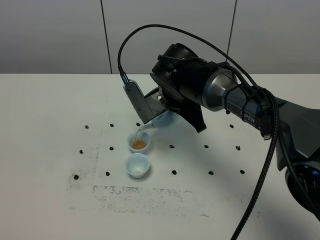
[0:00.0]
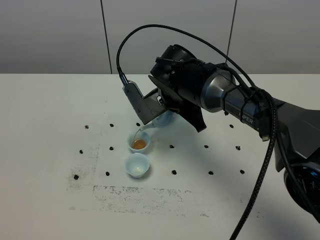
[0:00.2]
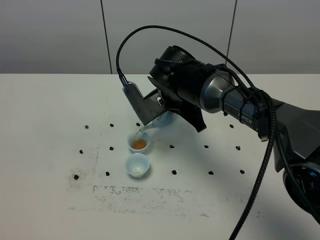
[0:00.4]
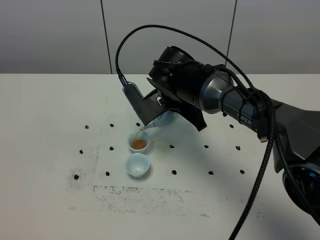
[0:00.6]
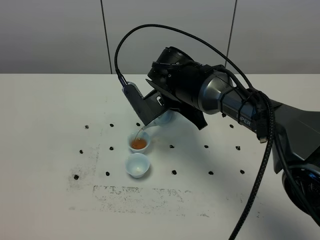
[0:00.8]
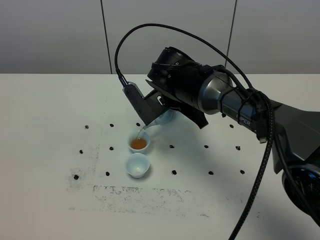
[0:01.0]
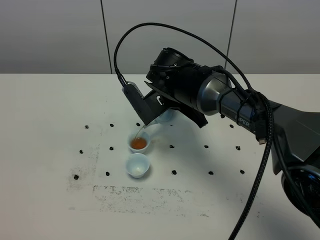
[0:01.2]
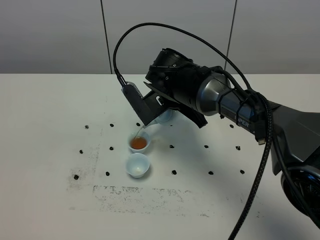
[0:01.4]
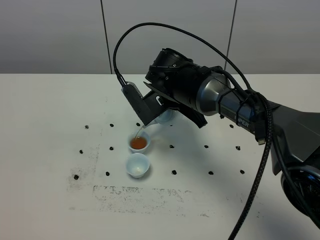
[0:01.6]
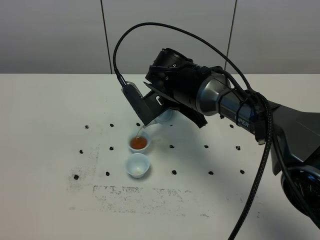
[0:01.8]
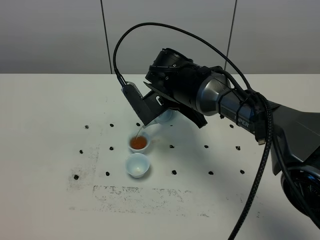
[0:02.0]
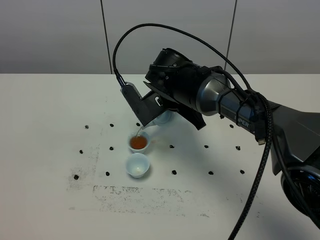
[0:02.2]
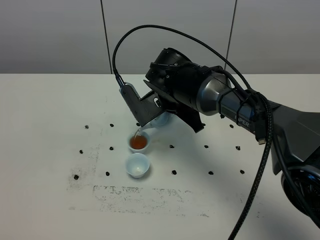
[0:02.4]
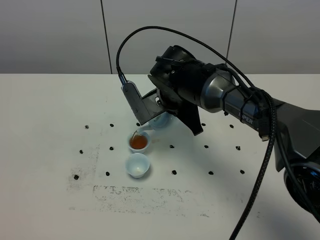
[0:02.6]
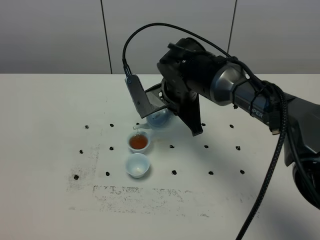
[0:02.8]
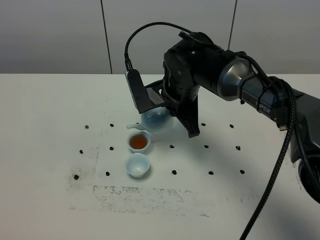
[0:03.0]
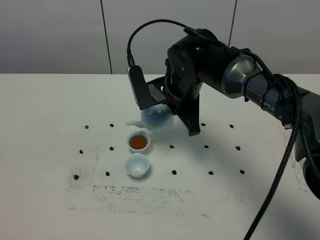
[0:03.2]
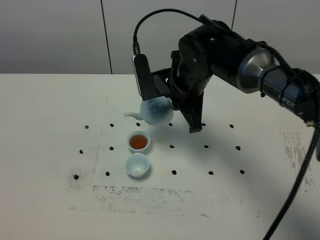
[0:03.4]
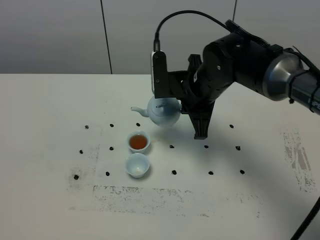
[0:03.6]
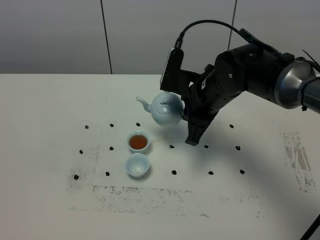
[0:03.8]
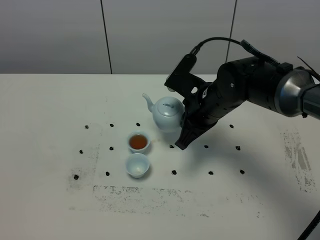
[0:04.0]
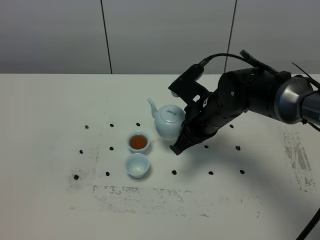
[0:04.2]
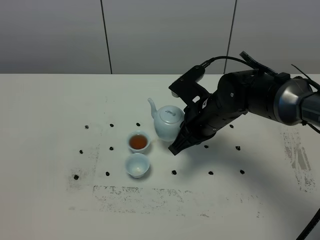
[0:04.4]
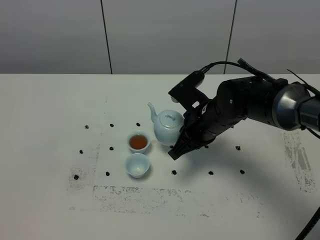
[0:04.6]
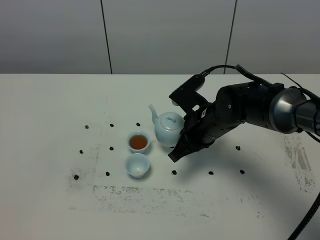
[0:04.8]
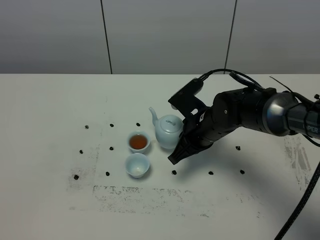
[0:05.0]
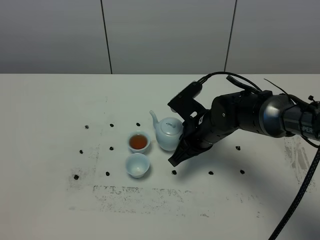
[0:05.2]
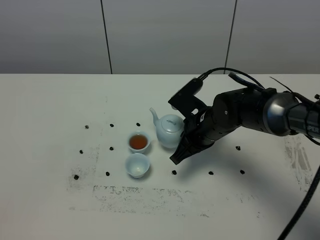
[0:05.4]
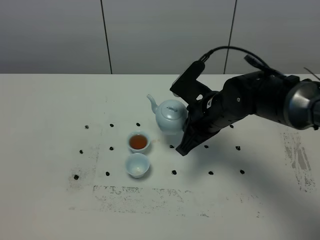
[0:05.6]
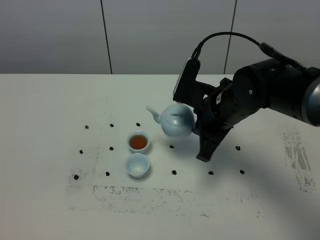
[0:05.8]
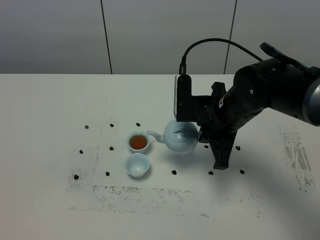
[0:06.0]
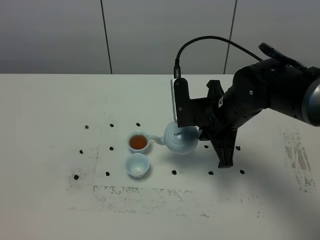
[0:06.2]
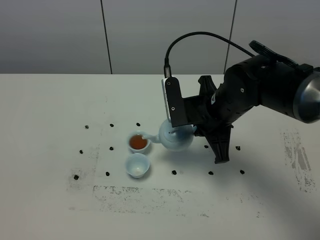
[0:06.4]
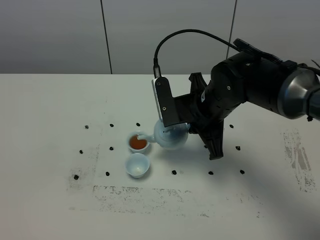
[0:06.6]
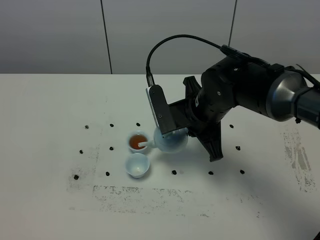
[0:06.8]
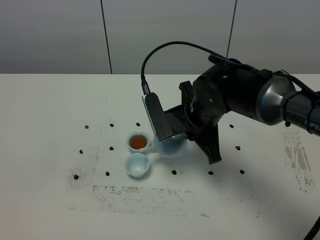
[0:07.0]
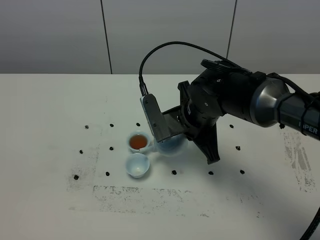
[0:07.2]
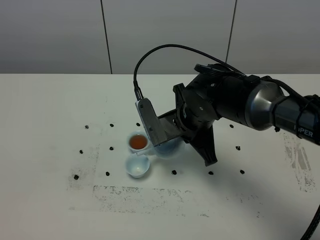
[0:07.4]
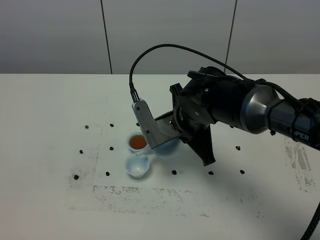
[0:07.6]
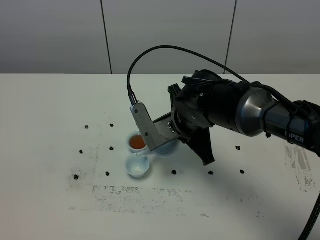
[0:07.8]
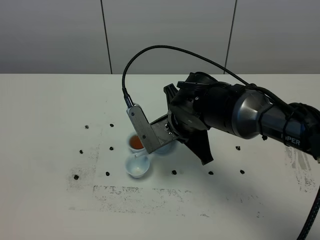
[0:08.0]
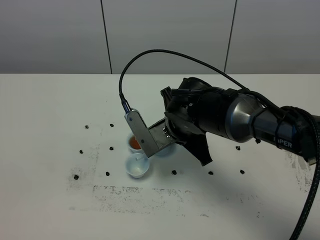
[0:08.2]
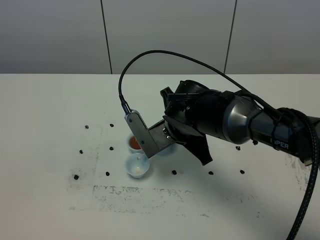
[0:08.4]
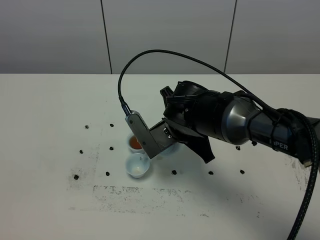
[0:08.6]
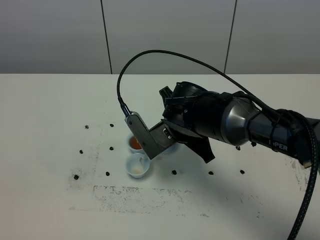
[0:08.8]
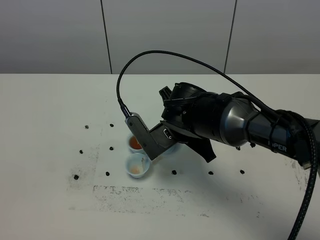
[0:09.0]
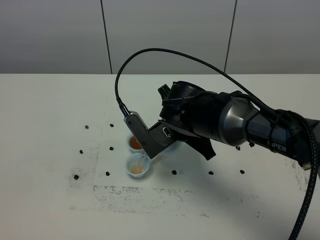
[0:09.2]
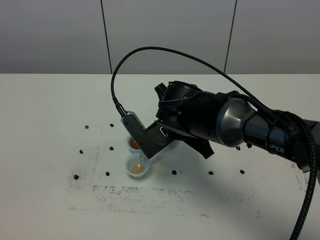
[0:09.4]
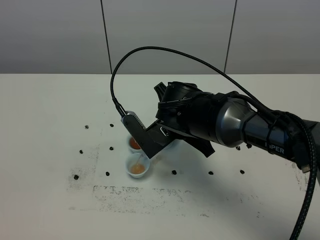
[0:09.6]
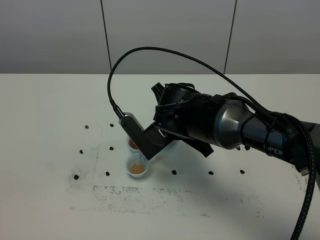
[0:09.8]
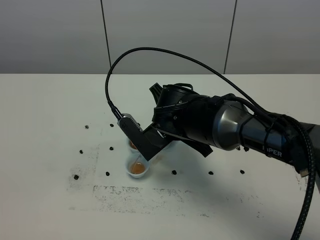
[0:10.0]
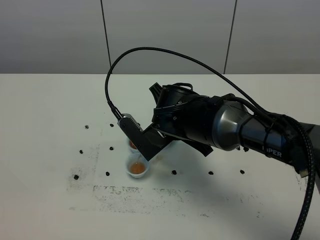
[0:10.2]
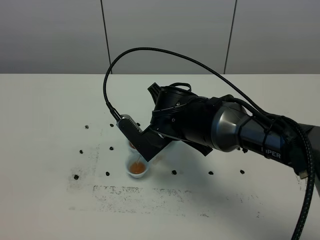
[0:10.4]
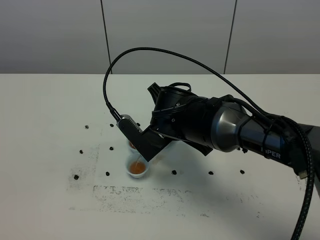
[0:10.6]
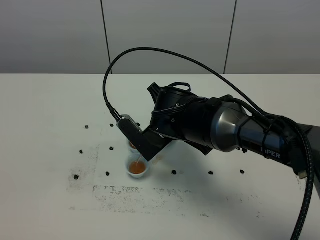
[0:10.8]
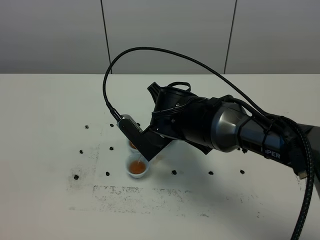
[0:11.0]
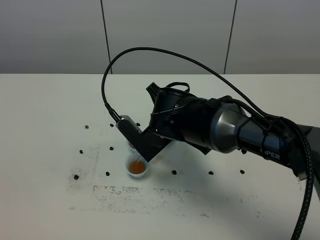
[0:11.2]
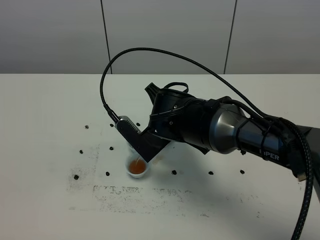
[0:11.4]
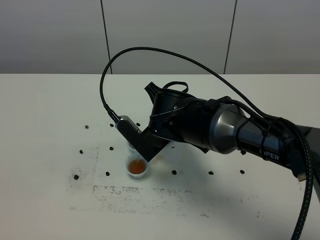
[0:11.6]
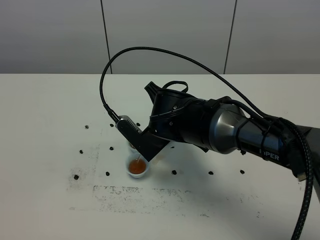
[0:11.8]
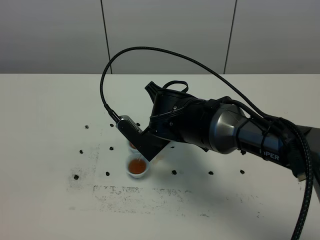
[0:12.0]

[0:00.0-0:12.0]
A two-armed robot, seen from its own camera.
Task of the whole recording: grasp the blue porcelain teapot and pour the tea into the two blue porcelain teacups one by one, put the blue porcelain teapot back in its original place.
0:00.0 to 0:01.6: There are only small adjustments of the grippers.
0:03.0 to 0:04.4: The right gripper travels to the right by approximately 5 cm.
0:06.0 to 0:07.6: The right gripper is displaced to the left by roughly 5 cm.
0:07.6 to 0:09.0: The grippers move only a little.
0:09.0 to 0:10.4: The grippers move only a little.
0:10.4 to 0:12.0: The two grippers keep their place.

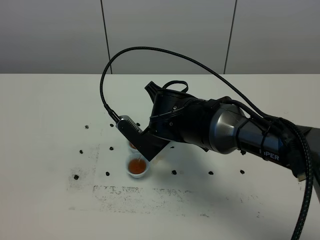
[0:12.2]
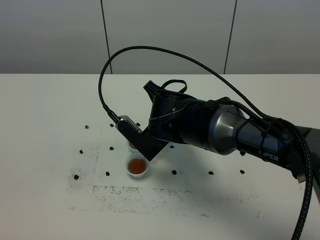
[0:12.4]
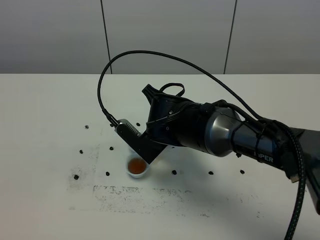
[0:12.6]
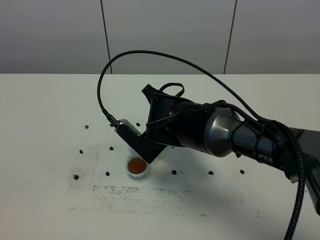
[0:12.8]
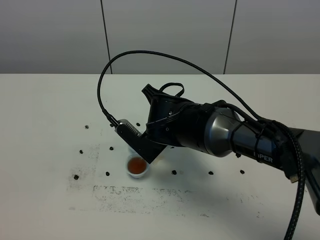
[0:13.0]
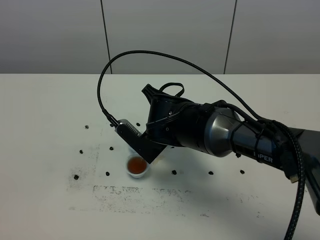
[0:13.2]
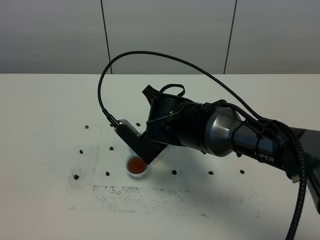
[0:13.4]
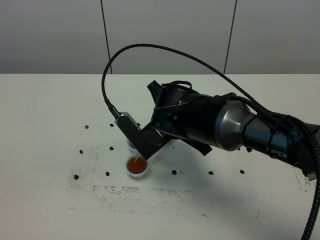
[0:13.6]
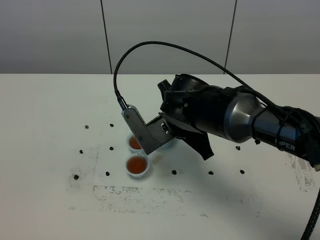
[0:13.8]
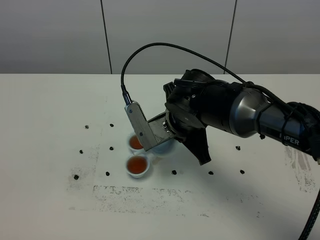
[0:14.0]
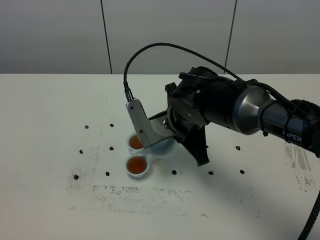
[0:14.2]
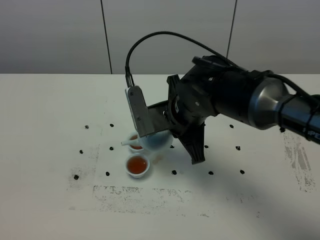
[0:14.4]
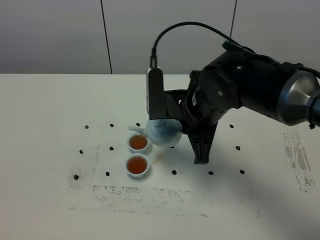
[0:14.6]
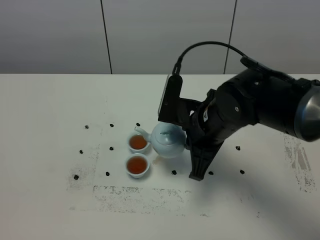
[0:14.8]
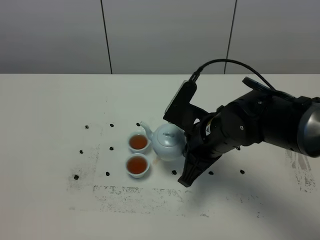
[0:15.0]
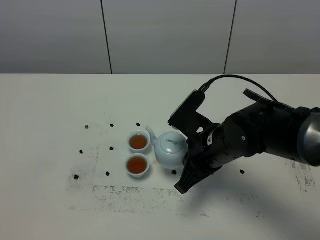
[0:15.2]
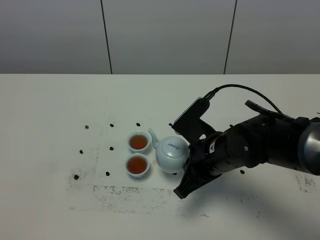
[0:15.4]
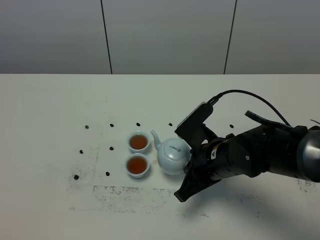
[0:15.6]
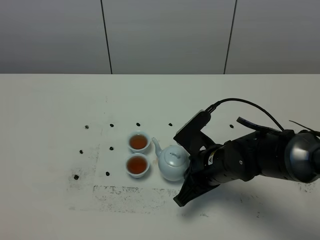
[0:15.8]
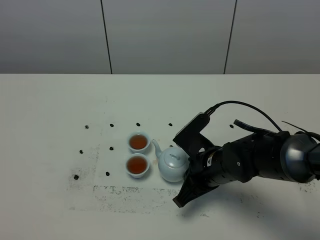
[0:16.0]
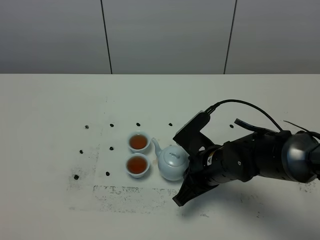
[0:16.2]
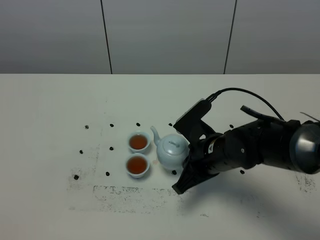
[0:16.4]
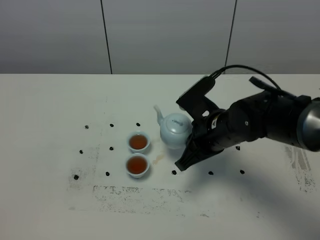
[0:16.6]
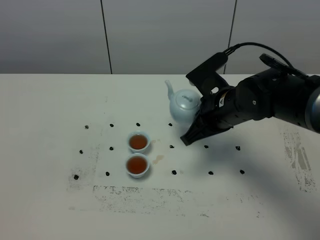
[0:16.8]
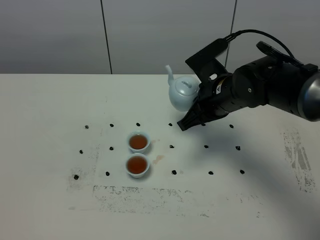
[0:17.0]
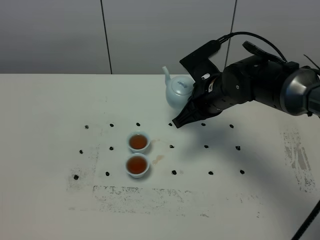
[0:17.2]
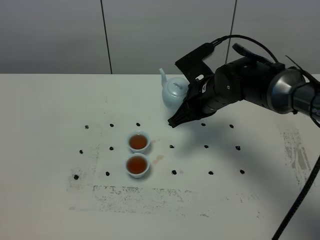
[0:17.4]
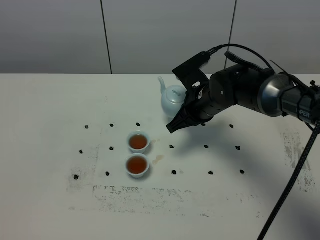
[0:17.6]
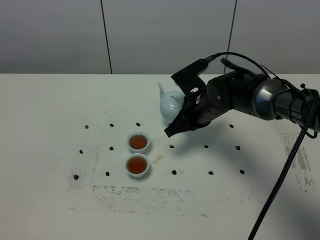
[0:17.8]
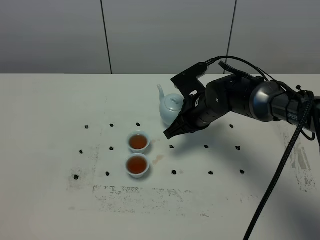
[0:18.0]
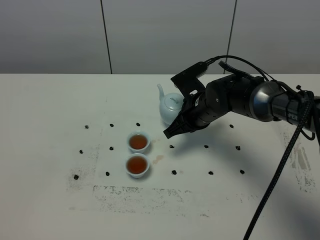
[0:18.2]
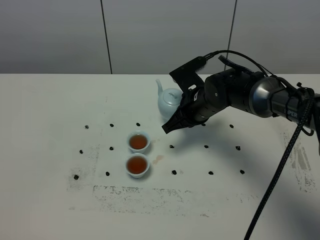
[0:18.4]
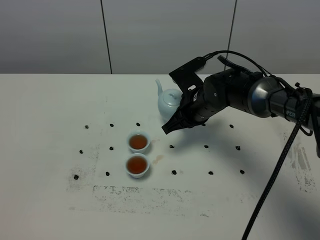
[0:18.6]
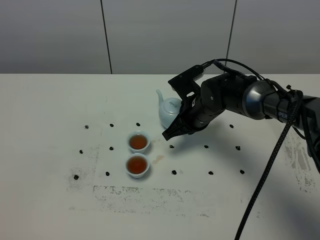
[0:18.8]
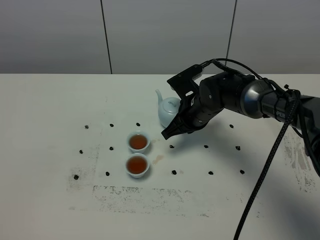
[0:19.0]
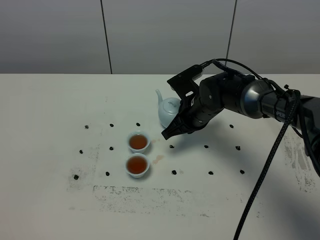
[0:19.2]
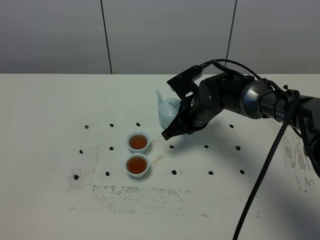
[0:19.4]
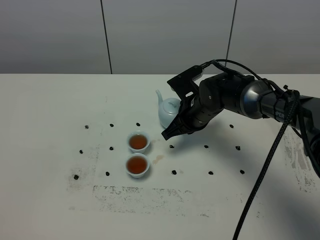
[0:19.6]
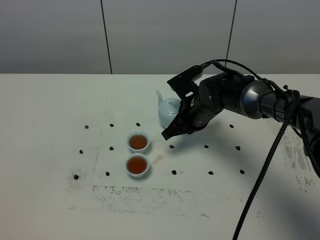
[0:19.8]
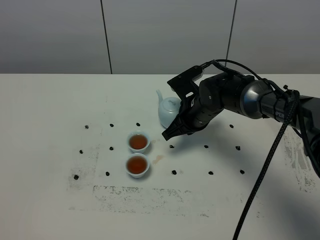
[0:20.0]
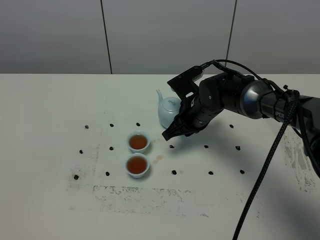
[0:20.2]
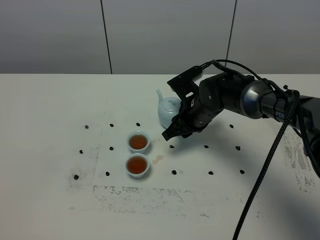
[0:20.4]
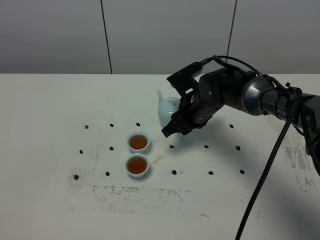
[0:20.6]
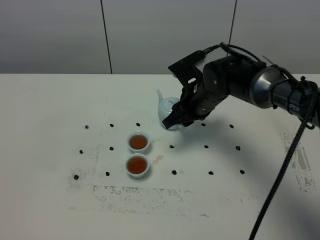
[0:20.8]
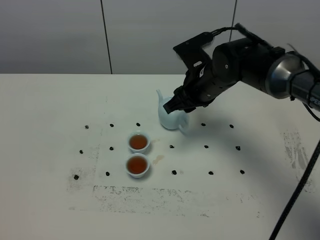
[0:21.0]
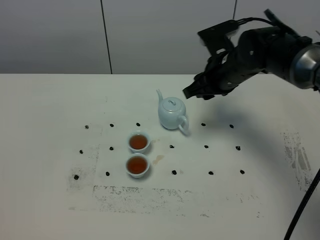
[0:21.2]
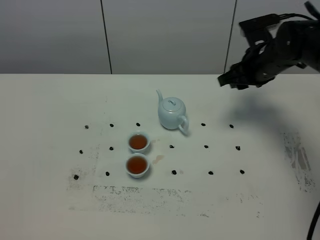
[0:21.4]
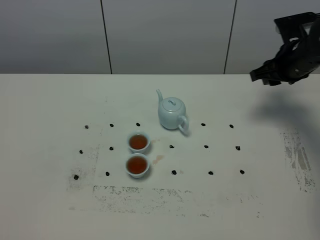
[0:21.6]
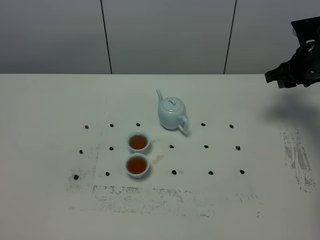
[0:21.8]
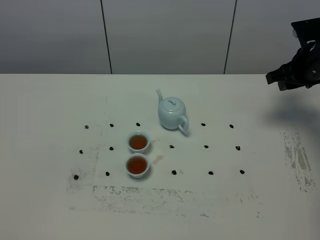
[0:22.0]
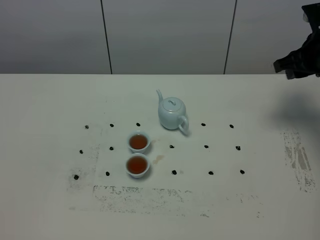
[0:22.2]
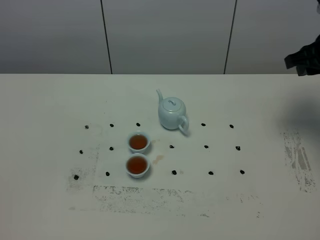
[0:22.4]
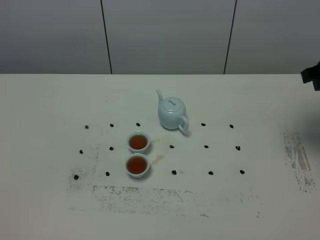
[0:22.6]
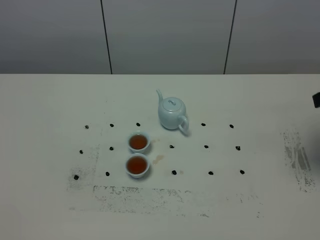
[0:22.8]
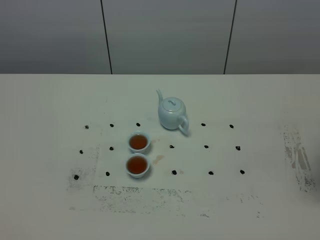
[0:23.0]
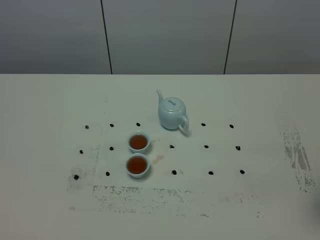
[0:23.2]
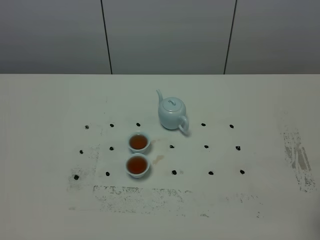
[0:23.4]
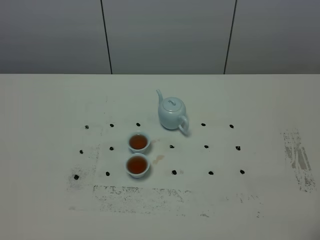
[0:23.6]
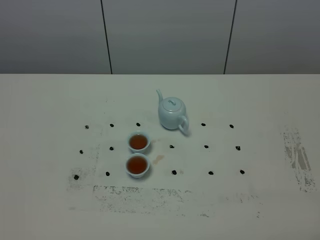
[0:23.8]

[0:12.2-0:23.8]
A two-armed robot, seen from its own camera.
Task of the whole recording: grasp the blue porcelain teapot and pour the tea into the two blue porcelain teacups one by one, put the blue porcelain teapot back in its original place.
Step, 0:12.2 to 0:14.2: Pour tea into the teacup with the right gripper.
0:12.2 to 0:13.6: The grippers stay close to where they were, moving slightly.
0:13.6 to 0:15.0: The right gripper moves to the right, approximately 5 cm.
0:16.6 to 0:18.0: The right gripper is displaced forward by roughly 10 cm.
0:18.0 to 0:19.4: The grippers make only small movements.
0:19.4 to 0:21.0: The right gripper is displaced upward by approximately 10 cm, and opens.
0:21.0 to 0:22.4: The right gripper travels to the right and upward by about 20 cm.
0:22.4 to 0:23.8: The right gripper moves backward, roughly 30 cm.
